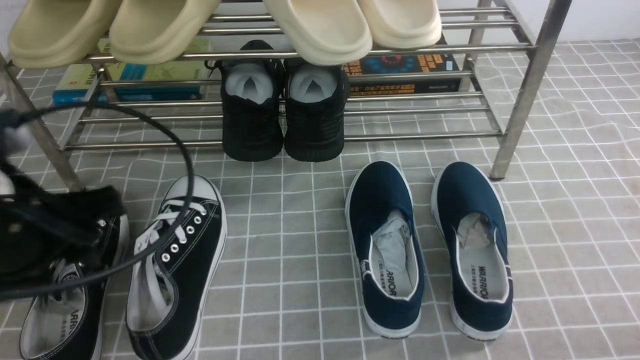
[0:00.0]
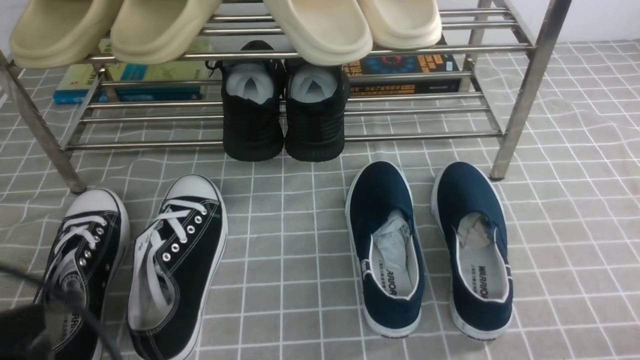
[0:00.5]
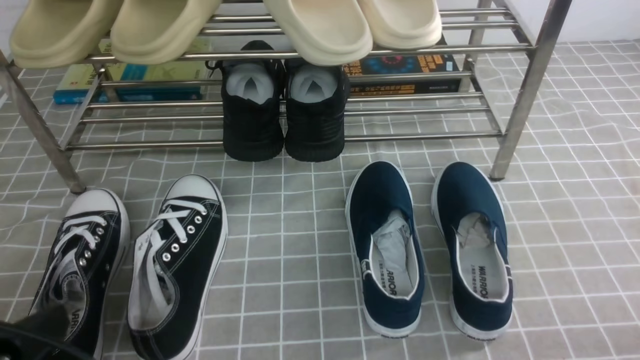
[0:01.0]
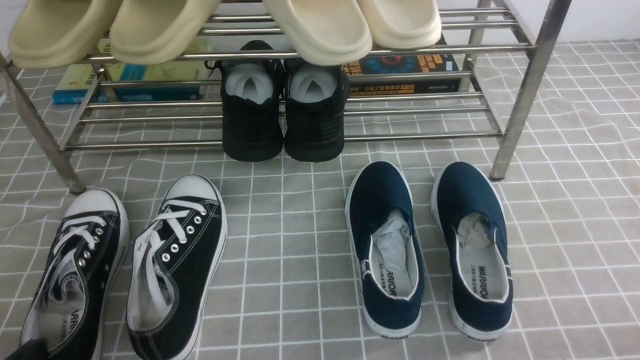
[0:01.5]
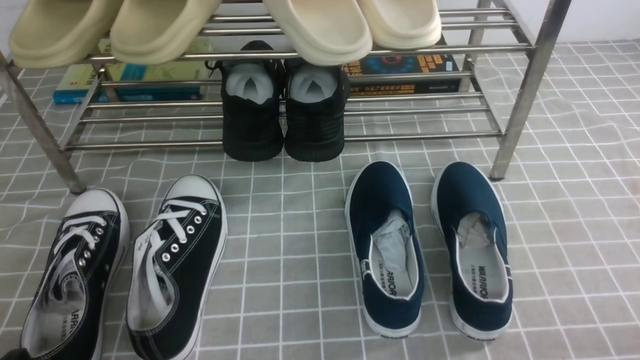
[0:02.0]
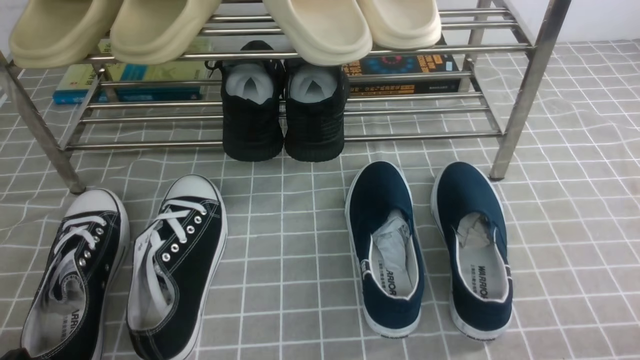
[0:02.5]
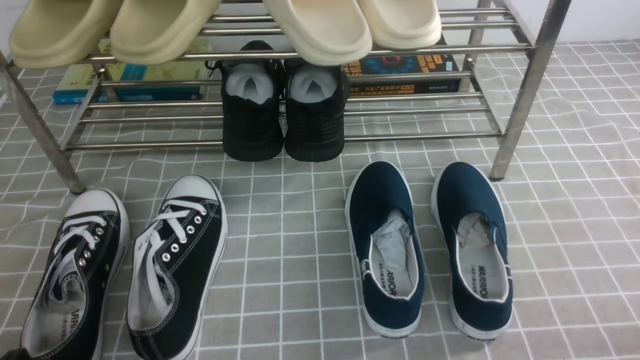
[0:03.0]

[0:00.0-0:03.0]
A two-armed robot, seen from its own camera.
0:00.0 to 0:01.5: The left gripper moves downward and backward, roughly 20 cm, and closes its fingers.
